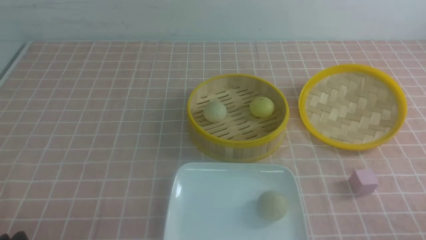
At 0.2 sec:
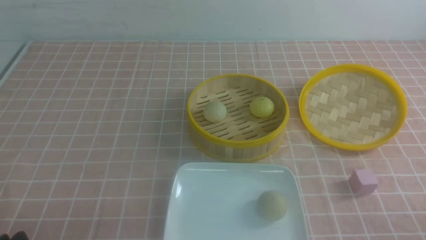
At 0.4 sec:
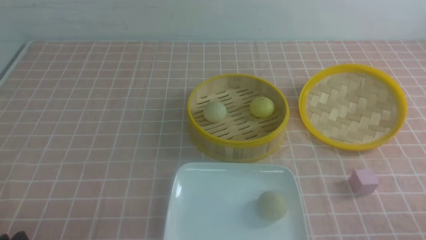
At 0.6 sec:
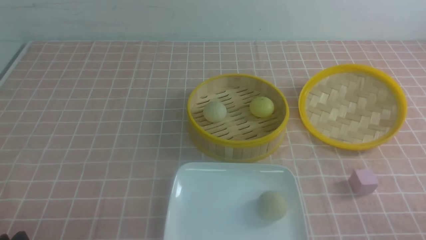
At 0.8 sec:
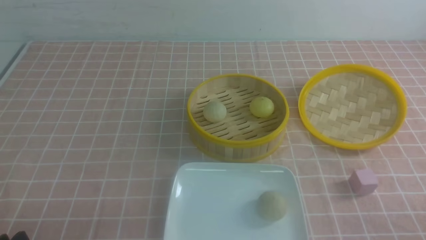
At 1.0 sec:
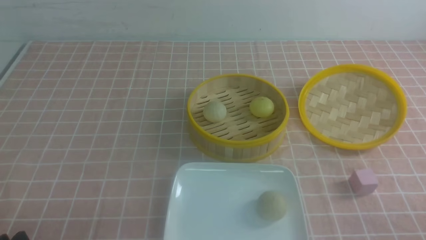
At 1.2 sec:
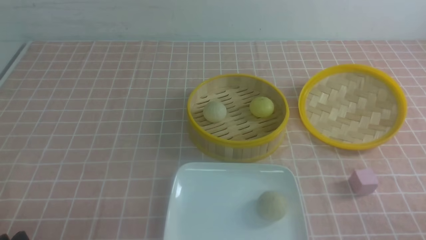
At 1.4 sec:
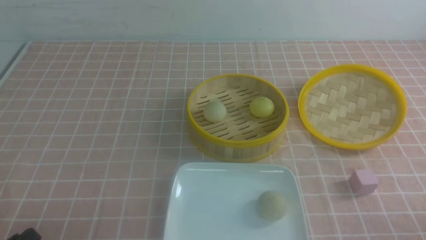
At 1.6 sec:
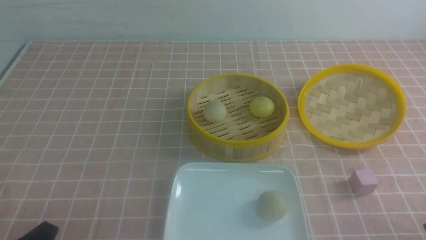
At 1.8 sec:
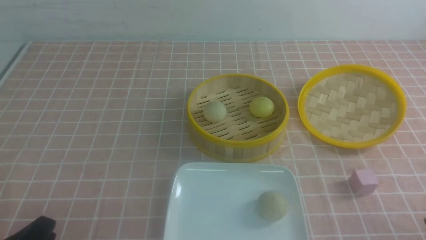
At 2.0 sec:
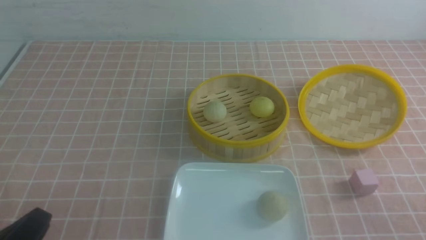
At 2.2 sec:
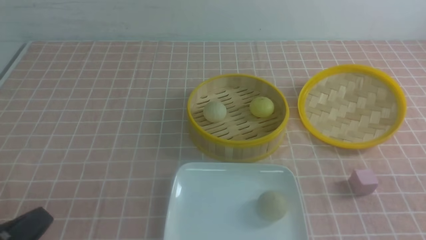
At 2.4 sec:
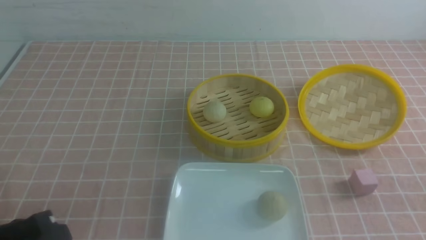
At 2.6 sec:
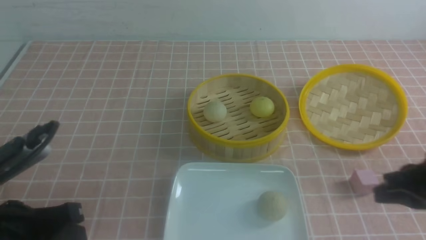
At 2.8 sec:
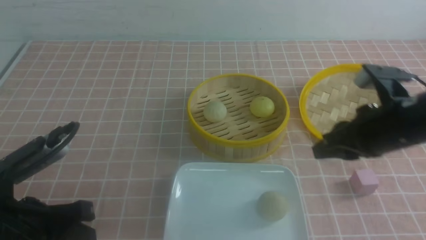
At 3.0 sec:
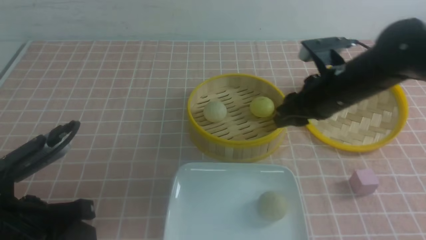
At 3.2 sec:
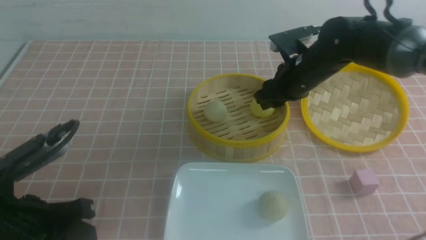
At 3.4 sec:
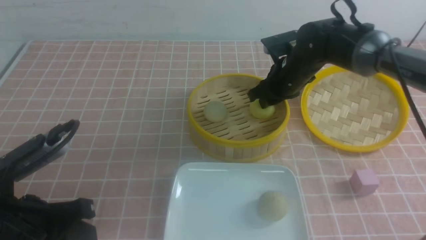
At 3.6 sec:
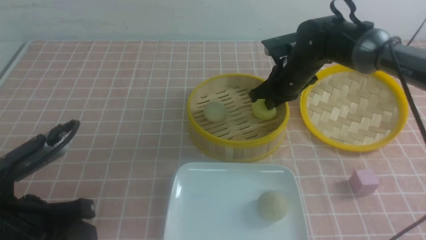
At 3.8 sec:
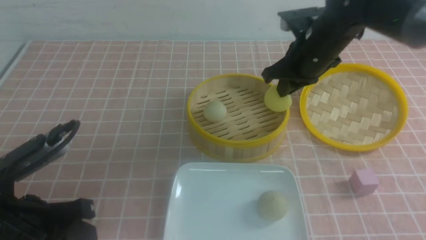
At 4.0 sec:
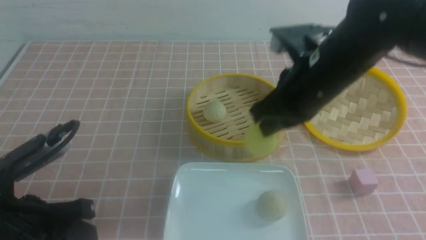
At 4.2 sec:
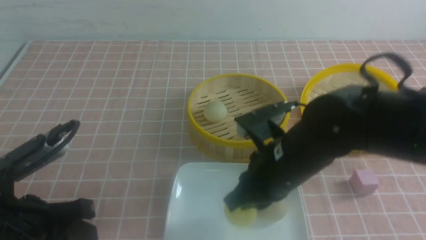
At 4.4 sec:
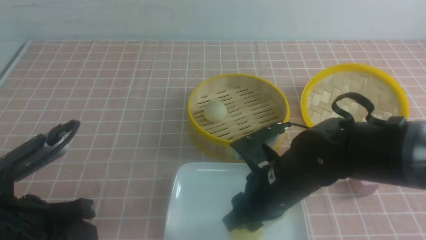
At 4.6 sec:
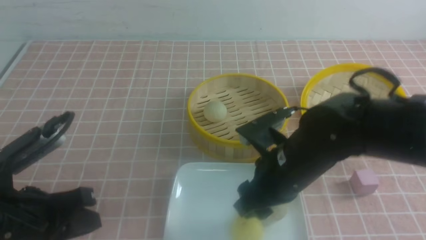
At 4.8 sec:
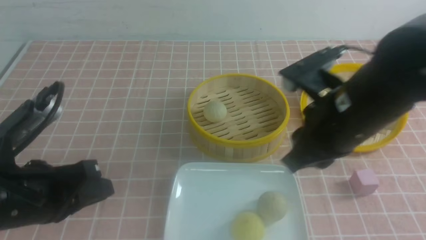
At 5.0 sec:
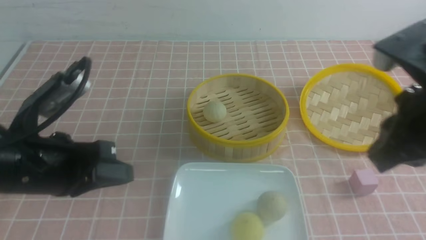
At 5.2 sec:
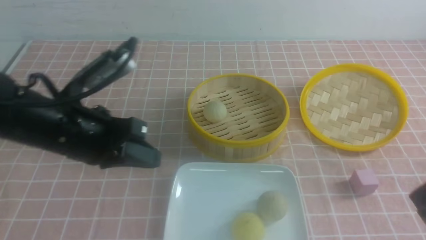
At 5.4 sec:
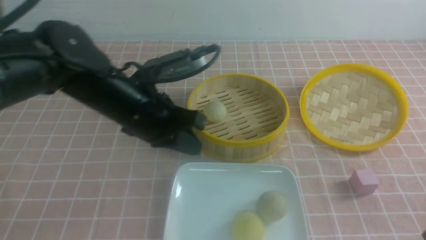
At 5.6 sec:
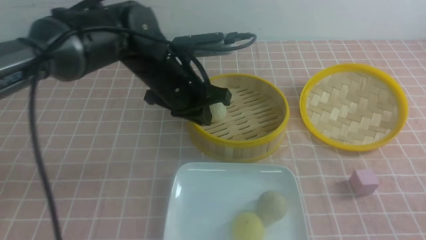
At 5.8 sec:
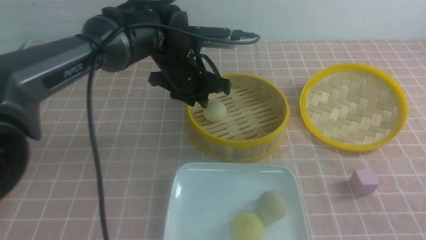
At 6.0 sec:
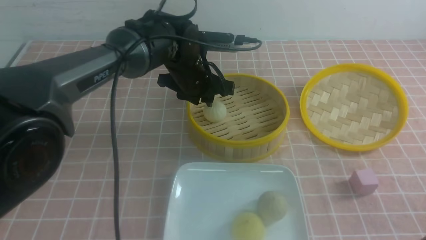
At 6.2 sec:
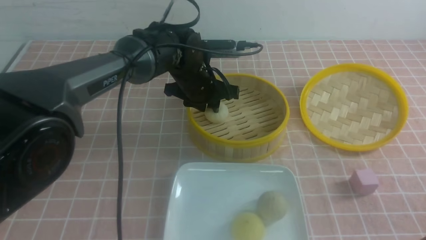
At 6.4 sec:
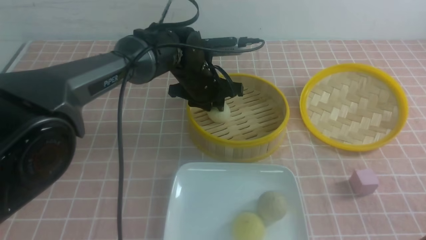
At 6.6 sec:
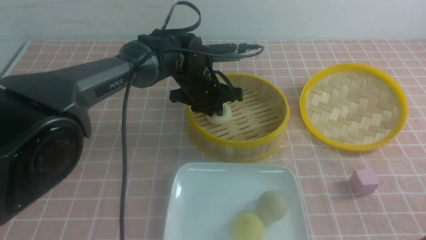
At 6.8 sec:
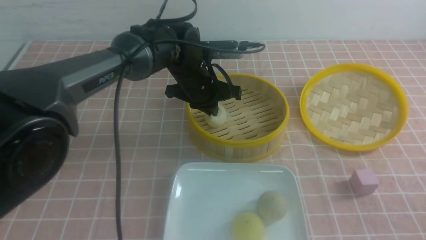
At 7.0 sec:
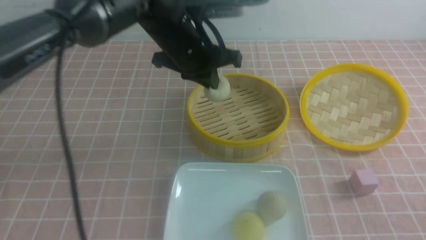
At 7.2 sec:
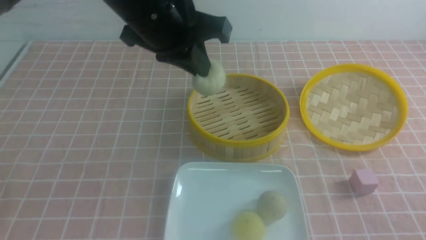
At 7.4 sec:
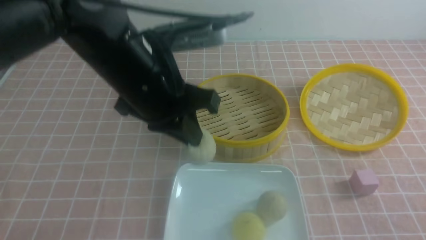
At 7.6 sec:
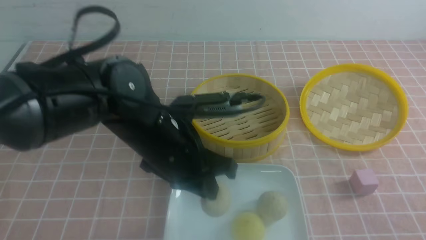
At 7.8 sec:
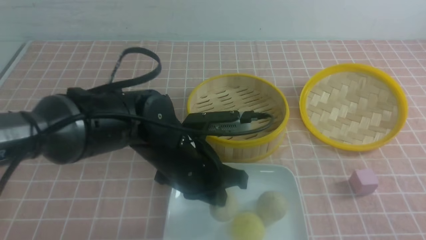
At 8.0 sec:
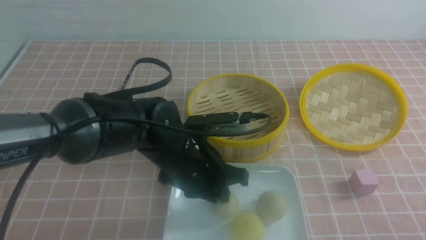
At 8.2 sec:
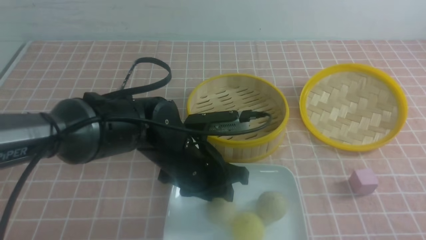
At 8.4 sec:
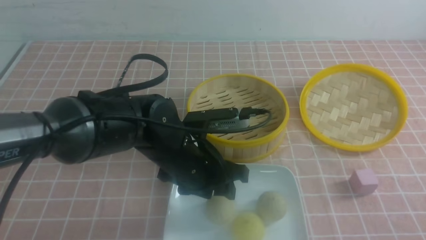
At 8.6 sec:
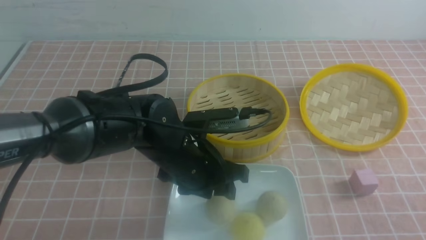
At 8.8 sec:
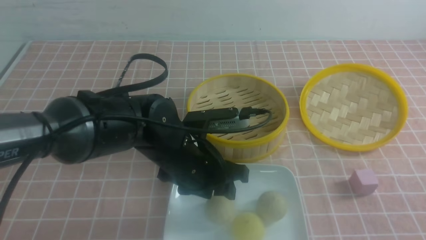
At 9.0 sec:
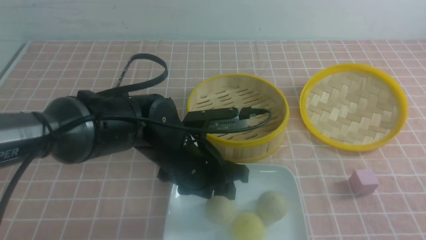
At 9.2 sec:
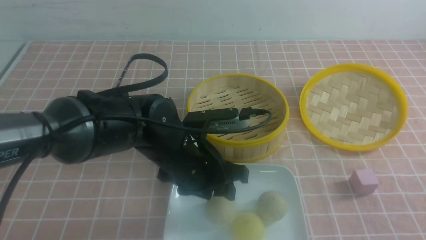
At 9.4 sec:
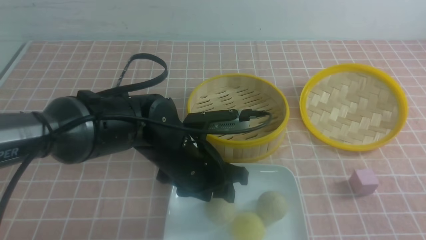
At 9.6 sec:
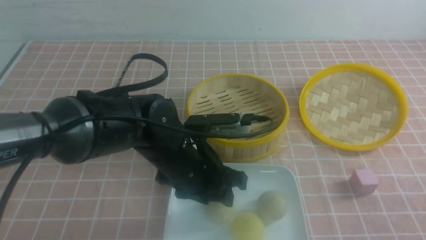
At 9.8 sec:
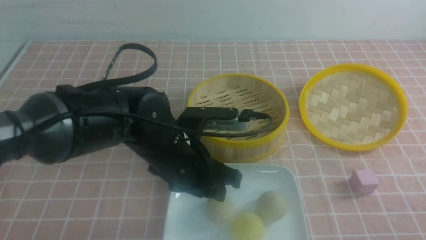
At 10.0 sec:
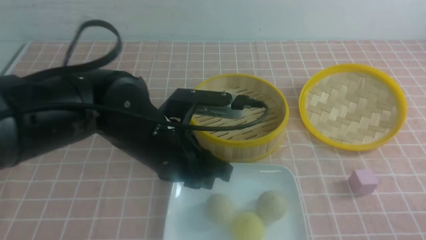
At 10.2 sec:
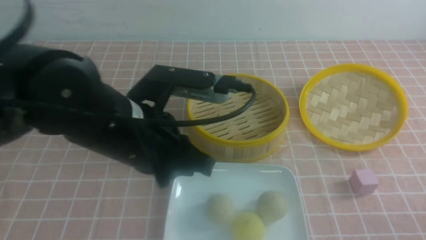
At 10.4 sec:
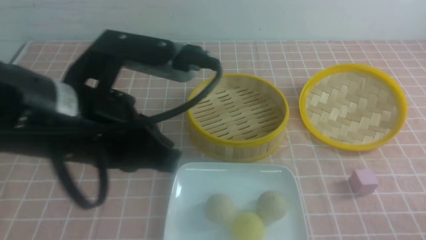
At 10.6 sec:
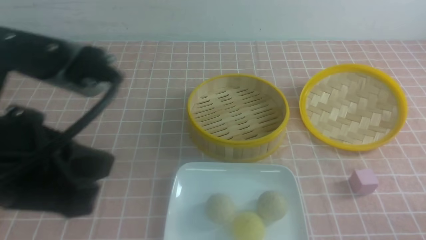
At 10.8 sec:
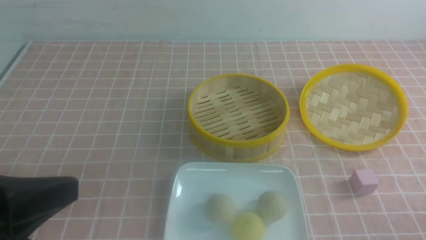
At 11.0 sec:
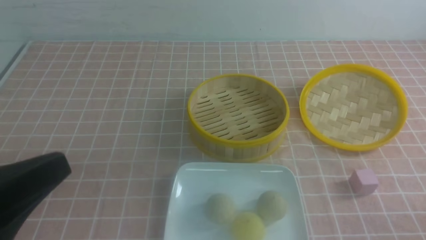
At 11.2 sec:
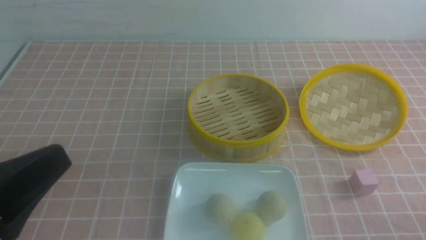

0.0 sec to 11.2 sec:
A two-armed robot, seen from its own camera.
Step, 0.0 sec to 3.6 sec: use the right arm to grab the steamed stuffed bun that is closest to it.
Step, 3.8 sec to 4.6 sec: use the right arm to put the steamed stuffed bun into the plate.
Step, 4.8 sec to 6.6 sec: use the left arm to grab the steamed stuffed bun that is closest to it.
Step, 7.0 sec to 8.2 sec: use the left arm to put the steamed stuffed bun into the plate.
1.6 sec to 3.2 sec: The left gripper is displaced forward and upward by some 10 cm, and closes up, while the right gripper moves forward and to the left, some 40 cm, and closes and opens again.
3.2 sec to 4.8 sec: The right gripper goes about 20 cm backward, and closes its fingers.
4.8 sec to 6.4 sec: The right gripper moves backward and to the right, roughly 20 cm, and closes; the left gripper goes some 30 cm forward and to the right, and opens.
6.4 sec to 8.0 sec: The right gripper shifts some 10 cm backward; the left gripper heads backward, covering approximately 15 cm, and closes, then opens again.
8.0 sec to 9.6 sec: The left gripper opens its fingers. The right gripper travels downward by some 5 cm.
9.6 sec to 11.2 sec: The left gripper is displaced backward, to the left and upward by approximately 30 cm, and closes, while the right gripper is displaced downward by approximately 5 cm.

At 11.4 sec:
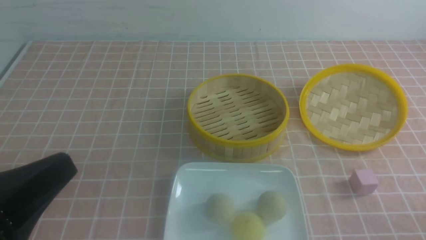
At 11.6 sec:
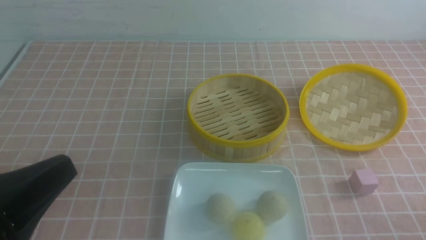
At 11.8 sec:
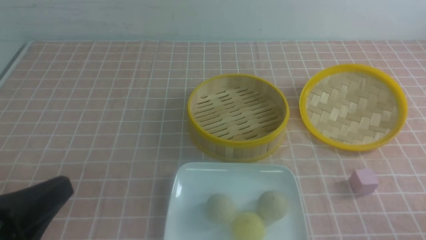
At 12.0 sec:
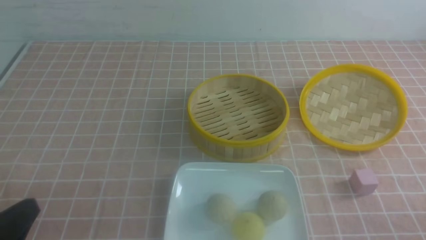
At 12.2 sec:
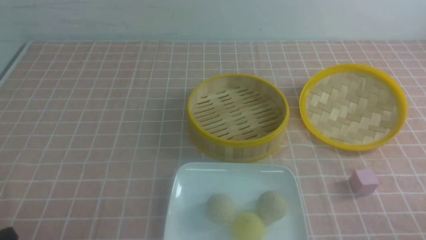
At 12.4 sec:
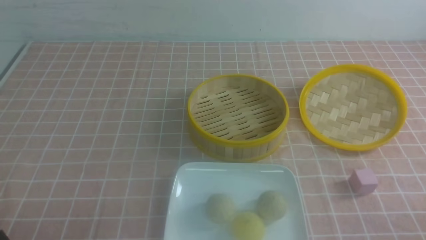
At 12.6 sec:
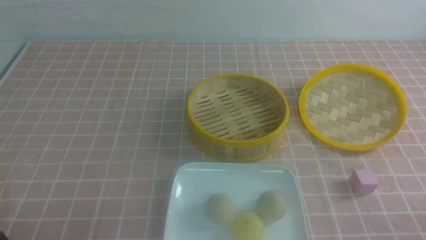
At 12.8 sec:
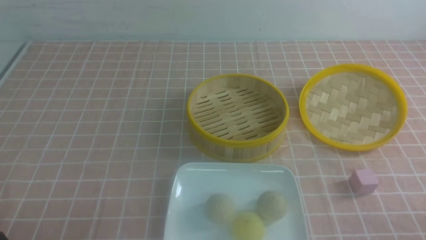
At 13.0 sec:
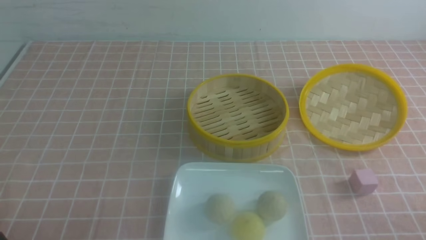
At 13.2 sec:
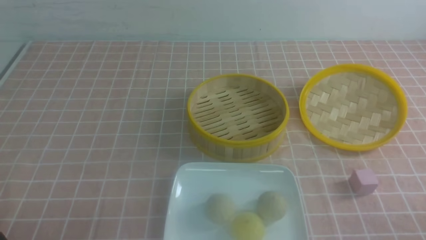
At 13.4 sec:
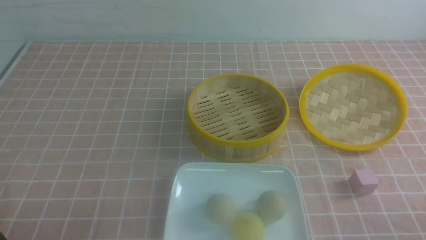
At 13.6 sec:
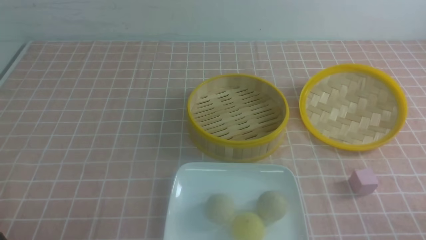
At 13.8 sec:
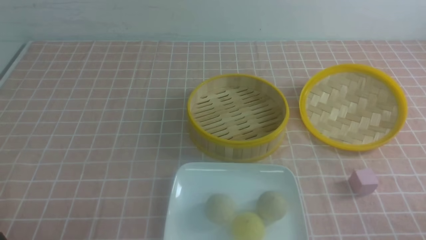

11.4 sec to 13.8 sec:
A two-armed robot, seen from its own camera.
11.4 sec to 12.6 sec: The left gripper is displaced downward by some 15 cm.
12.6 sec to 13.8 sec: The two grippers keep their place.
